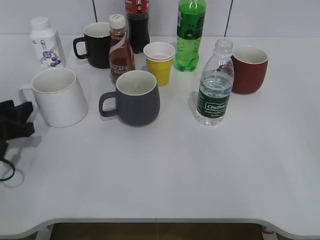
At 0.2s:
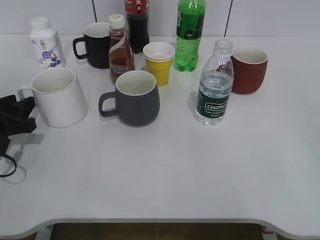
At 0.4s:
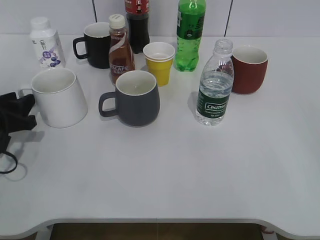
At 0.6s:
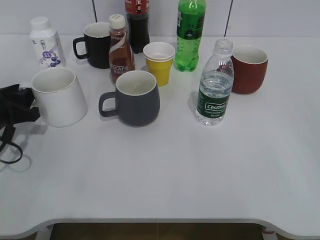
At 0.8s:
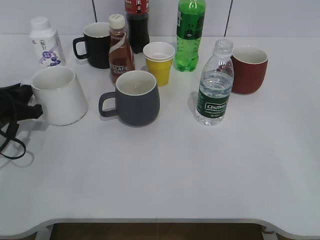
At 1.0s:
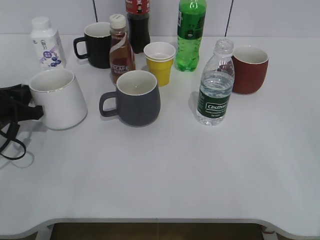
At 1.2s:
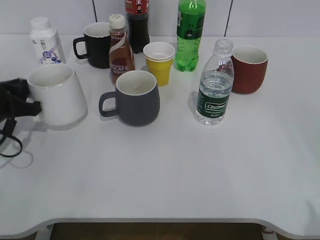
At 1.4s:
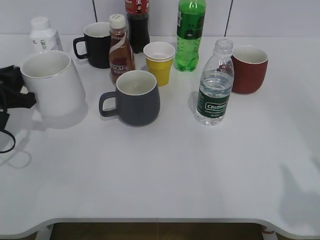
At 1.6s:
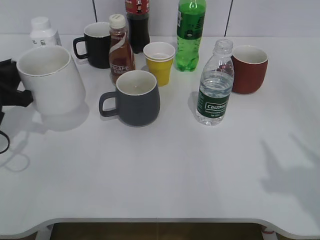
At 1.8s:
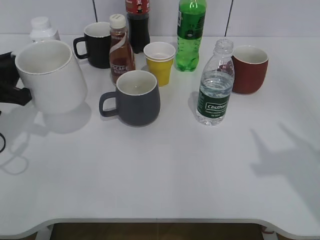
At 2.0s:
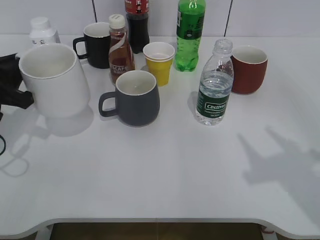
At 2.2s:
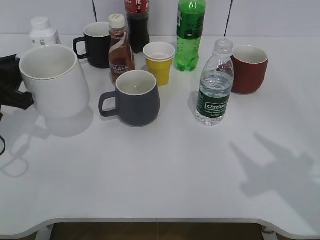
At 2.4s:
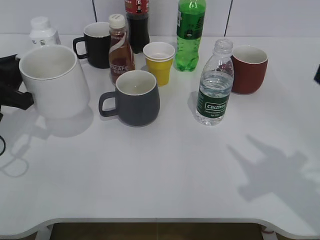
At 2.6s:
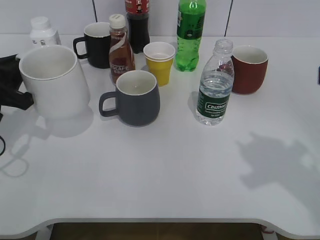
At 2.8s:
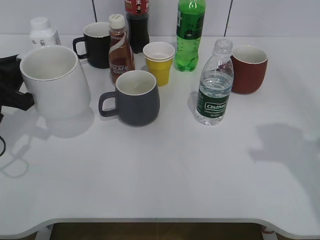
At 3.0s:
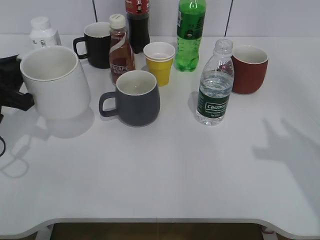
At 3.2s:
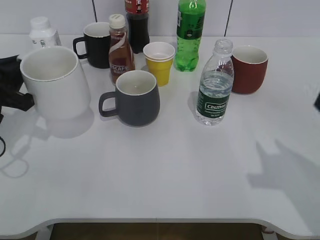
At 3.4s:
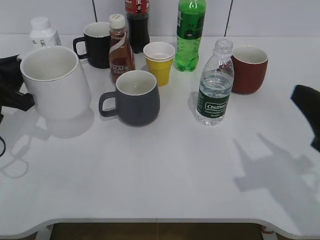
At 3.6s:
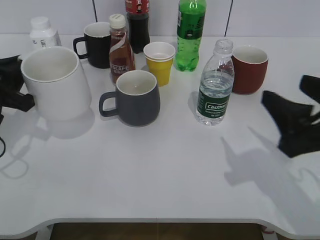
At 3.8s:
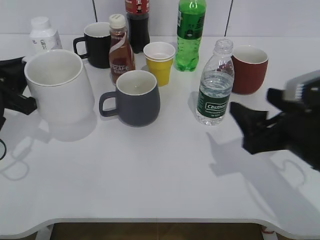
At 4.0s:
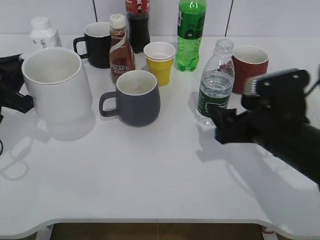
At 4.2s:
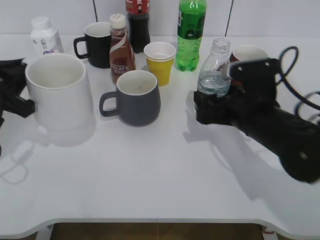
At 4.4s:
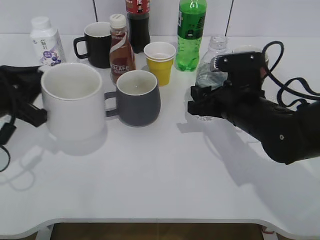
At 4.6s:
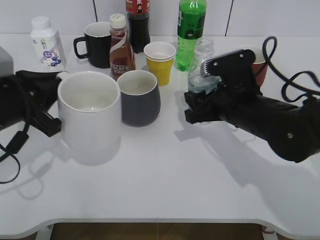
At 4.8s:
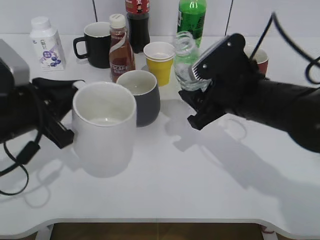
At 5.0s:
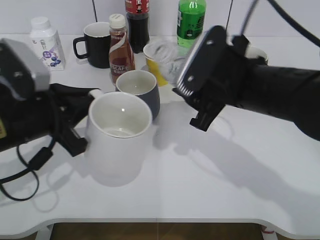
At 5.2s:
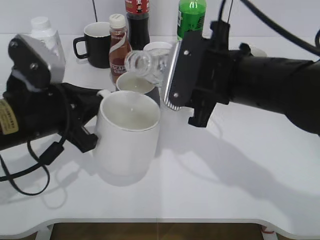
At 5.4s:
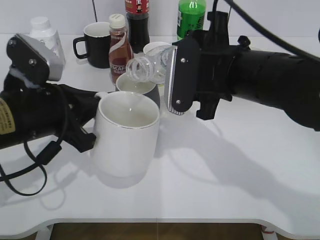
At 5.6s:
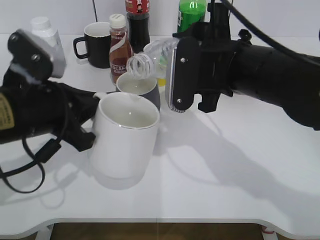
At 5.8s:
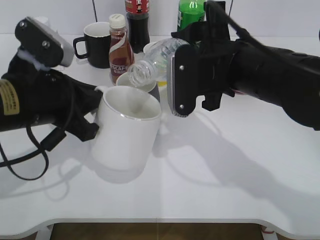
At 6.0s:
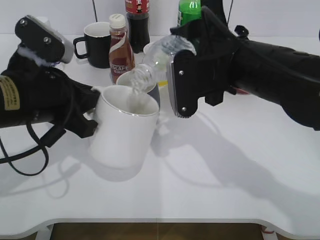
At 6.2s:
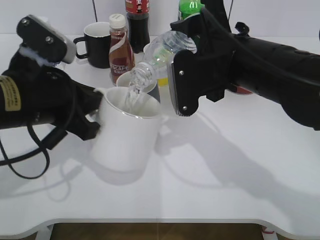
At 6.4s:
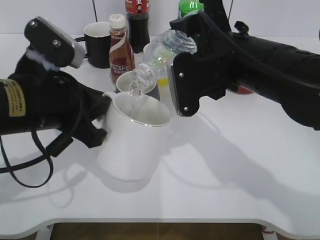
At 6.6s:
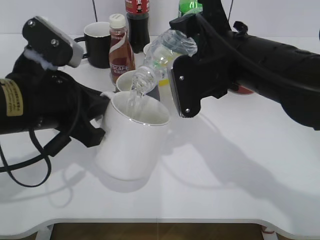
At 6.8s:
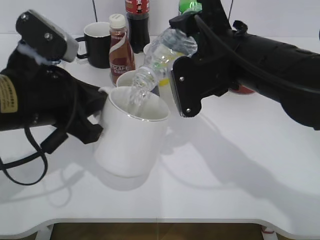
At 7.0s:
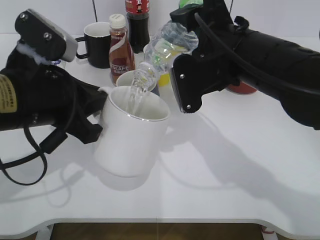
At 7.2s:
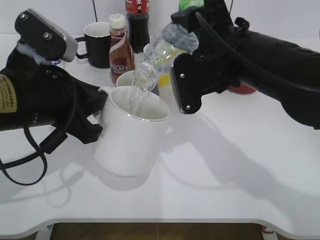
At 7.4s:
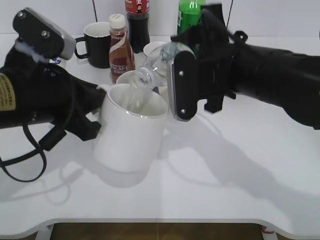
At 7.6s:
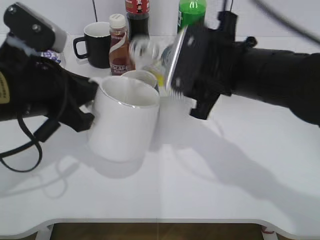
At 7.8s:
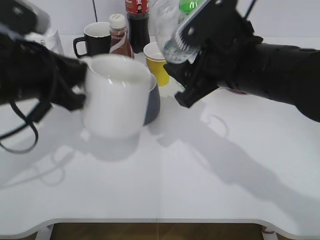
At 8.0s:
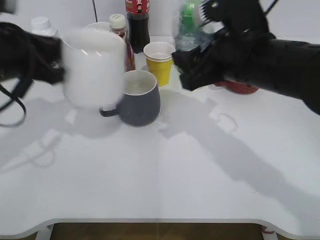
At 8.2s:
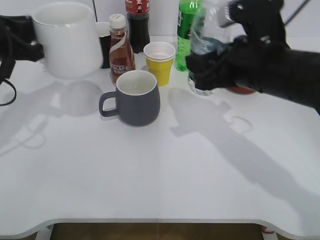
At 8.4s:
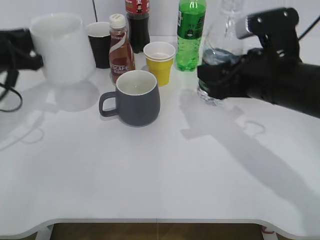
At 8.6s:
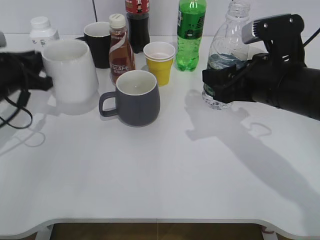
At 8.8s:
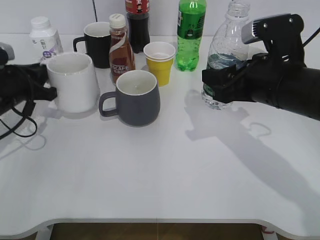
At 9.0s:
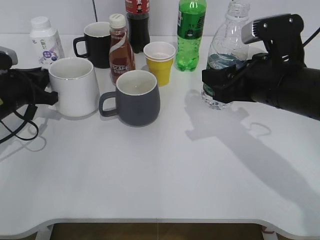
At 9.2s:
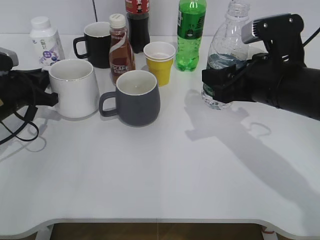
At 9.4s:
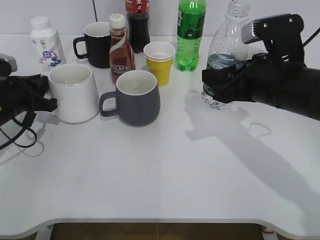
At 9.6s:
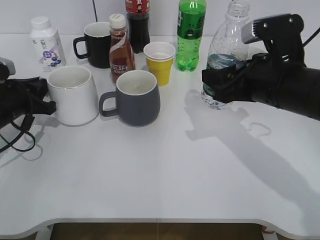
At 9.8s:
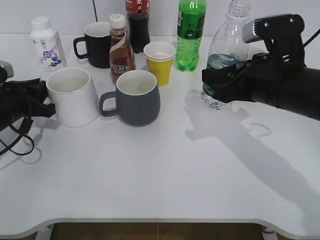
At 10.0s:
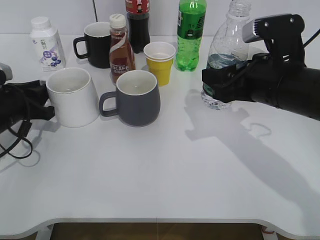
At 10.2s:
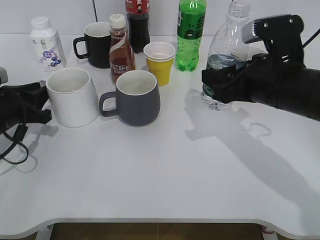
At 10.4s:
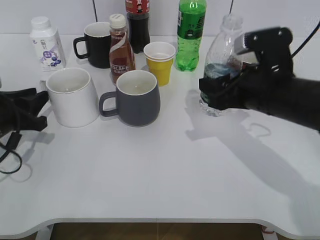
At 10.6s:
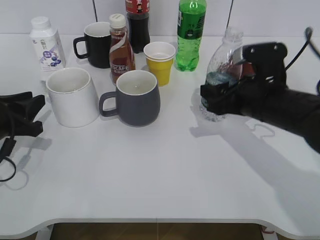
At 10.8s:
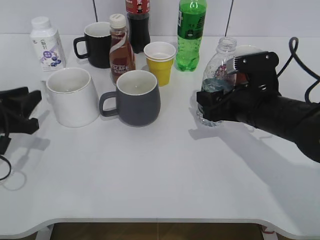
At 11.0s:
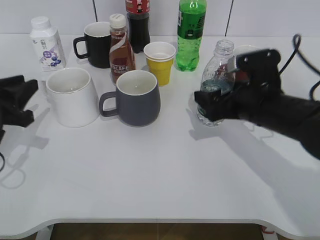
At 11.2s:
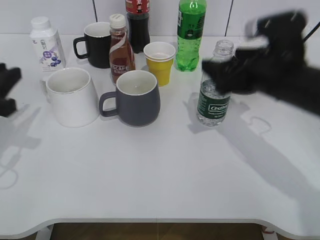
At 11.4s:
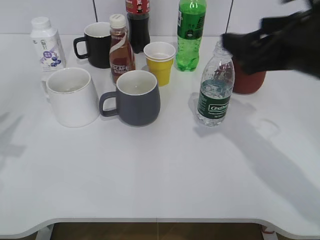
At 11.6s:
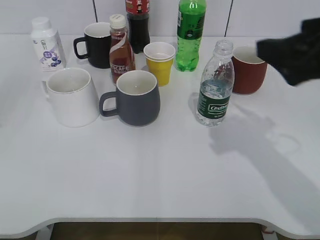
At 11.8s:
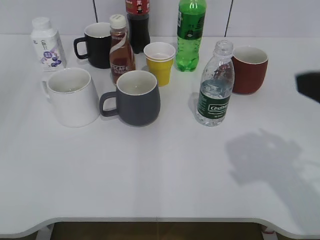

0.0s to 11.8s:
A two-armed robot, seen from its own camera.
Step, 0.8s to 1.8s: Lift the white cup with left gripper.
Step, 2.2s to 4.2s: Grasp the bottle with water with right gripper.
Step, 4.6s to 7.6s: Pour the water from bottle to cup with right gripper.
Step, 7.8s to 10.0s: Place the white cup on the table with left gripper.
Step, 10.2s to 10.6s: Place the water bottle on the table with right gripper.
0.0s to 1.4s: The left gripper changes place by some 5 cm, and closes its fingers.
3.0s to 4.4s: The right gripper shifts about 25 cm downward, to the left and forward, and opens its fingers.
4.4s to 6.0s: The right gripper moves upward, some 10 cm. Meanwhile the left gripper shifts some 10 cm to the right.
6.0s to 7.4s: The grippers move only a little.
7.4s to 8.8s: The left gripper heads forward, to the left and downward, covering roughly 20 cm. The right gripper shifts roughly 5 cm to the right.
8.8s to 10.4s: The left gripper goes some 5 cm backward.
10.4s to 11.8s: The left gripper heads upward and backward, covering roughly 30 cm, and opens its fingers. The right gripper shifts about 20 cm upward, backward and to the right, and opens its fingers.

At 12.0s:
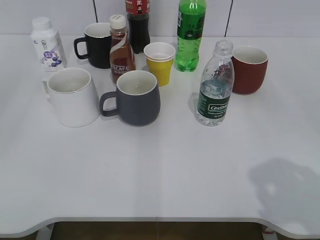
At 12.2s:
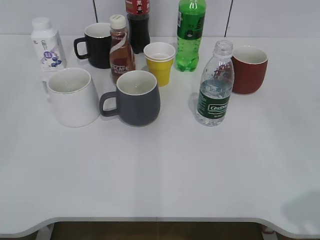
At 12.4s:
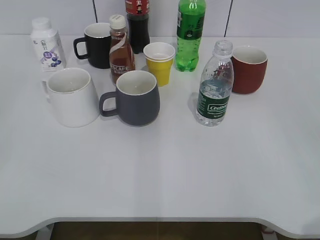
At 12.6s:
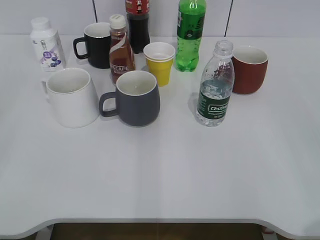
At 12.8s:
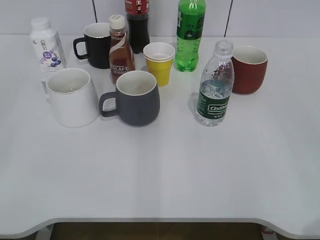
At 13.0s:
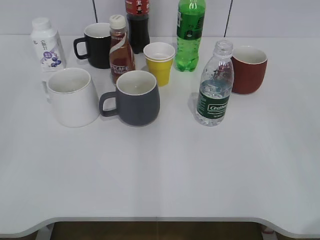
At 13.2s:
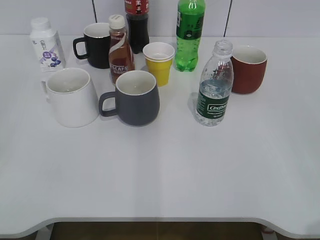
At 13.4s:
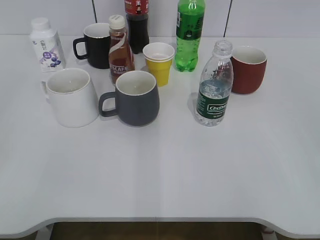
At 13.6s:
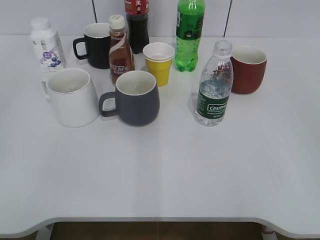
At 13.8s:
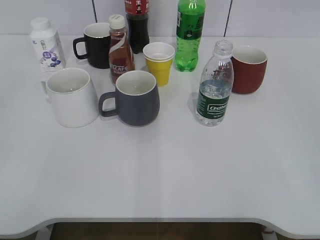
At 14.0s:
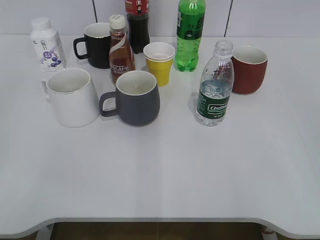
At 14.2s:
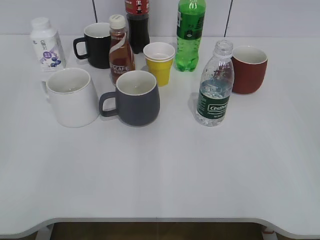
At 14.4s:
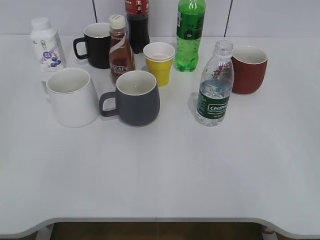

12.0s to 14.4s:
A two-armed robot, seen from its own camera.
12.0s to 13.2s: The right gripper shifts about 10 cm backward and to the right; the left gripper ends up about 5 cm from where it was.

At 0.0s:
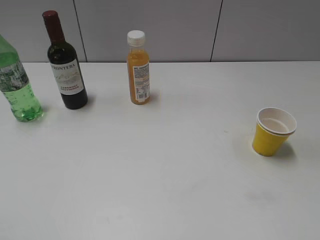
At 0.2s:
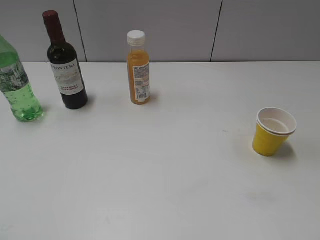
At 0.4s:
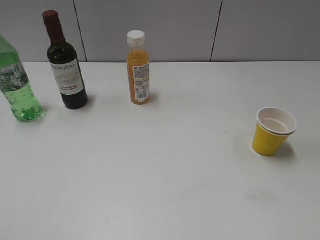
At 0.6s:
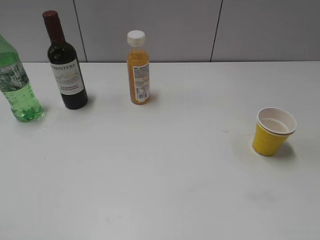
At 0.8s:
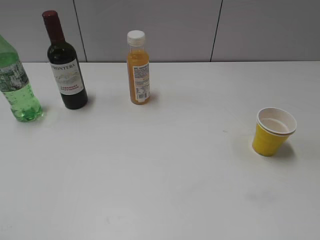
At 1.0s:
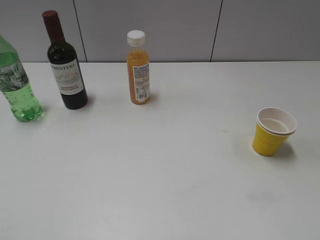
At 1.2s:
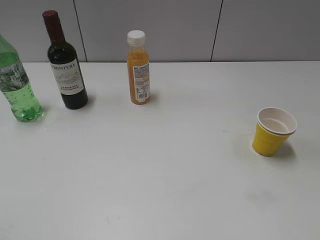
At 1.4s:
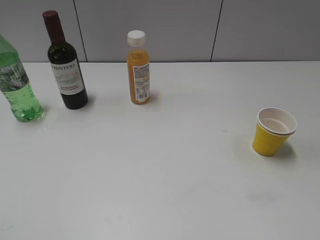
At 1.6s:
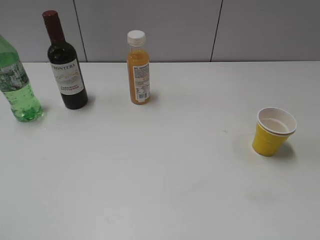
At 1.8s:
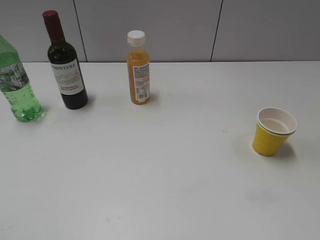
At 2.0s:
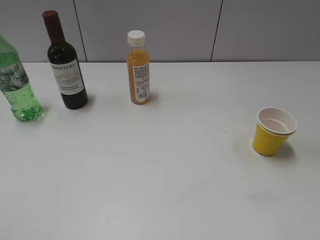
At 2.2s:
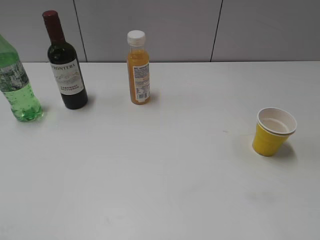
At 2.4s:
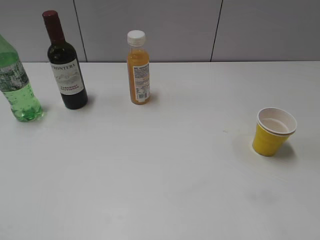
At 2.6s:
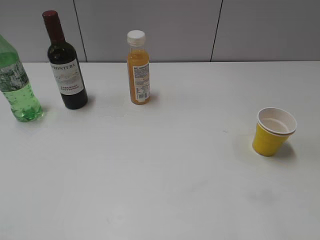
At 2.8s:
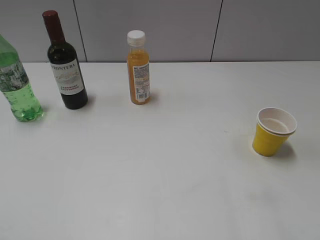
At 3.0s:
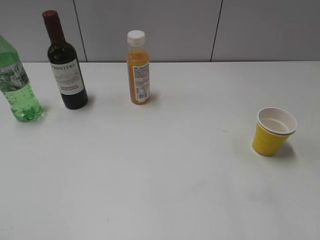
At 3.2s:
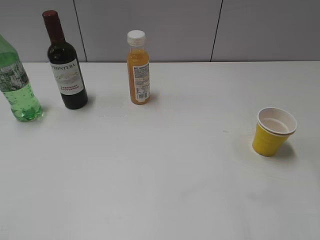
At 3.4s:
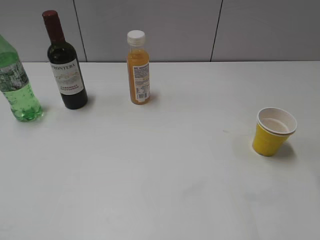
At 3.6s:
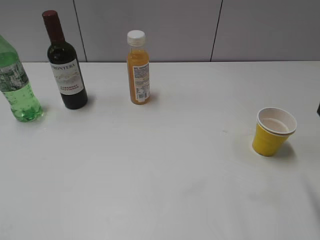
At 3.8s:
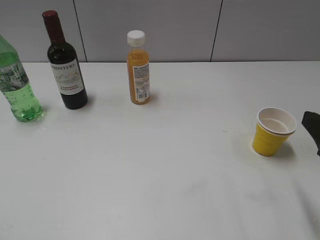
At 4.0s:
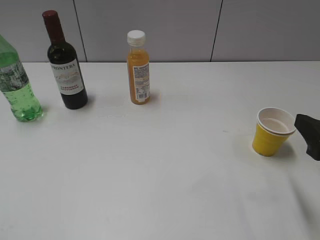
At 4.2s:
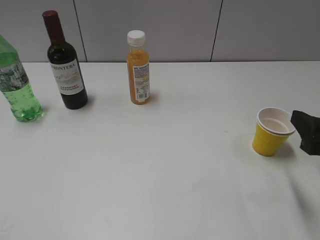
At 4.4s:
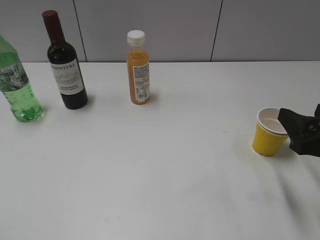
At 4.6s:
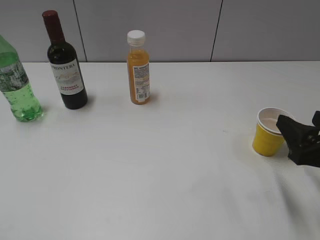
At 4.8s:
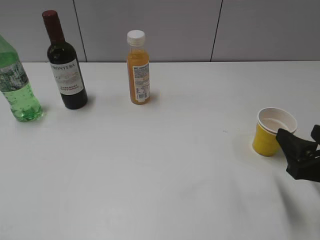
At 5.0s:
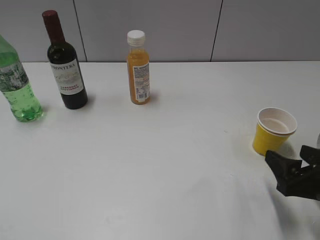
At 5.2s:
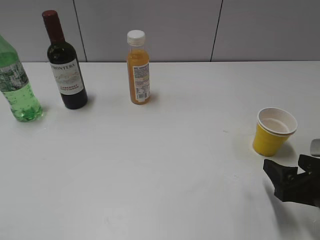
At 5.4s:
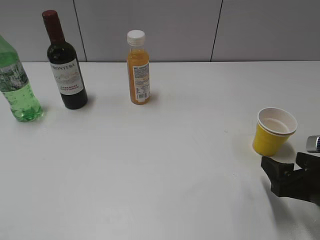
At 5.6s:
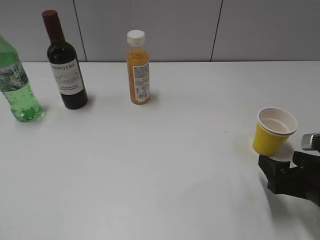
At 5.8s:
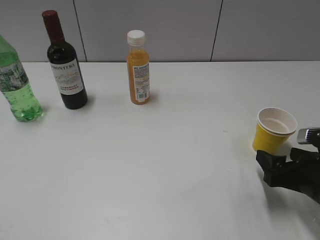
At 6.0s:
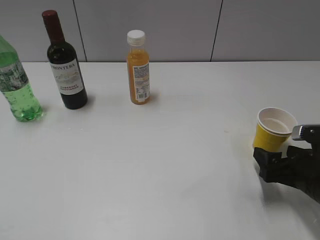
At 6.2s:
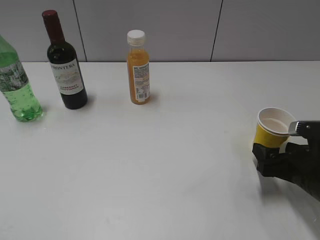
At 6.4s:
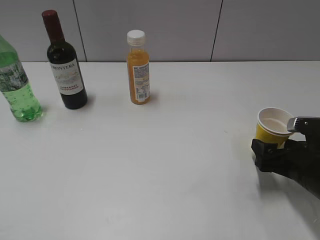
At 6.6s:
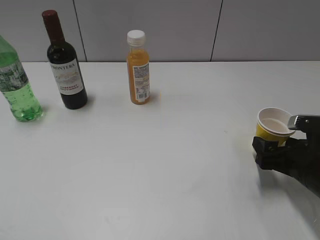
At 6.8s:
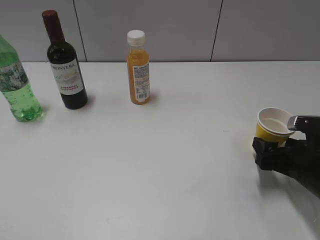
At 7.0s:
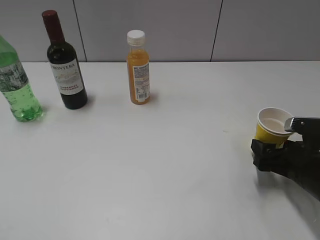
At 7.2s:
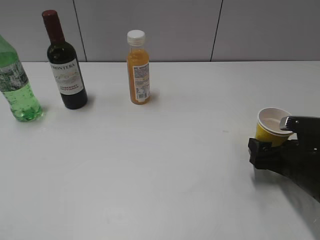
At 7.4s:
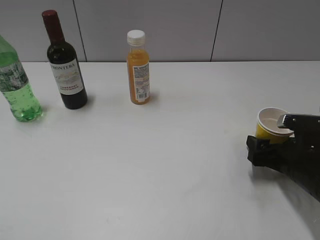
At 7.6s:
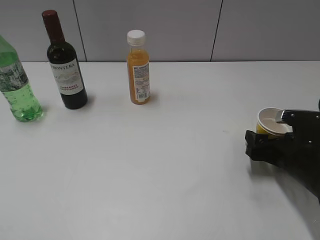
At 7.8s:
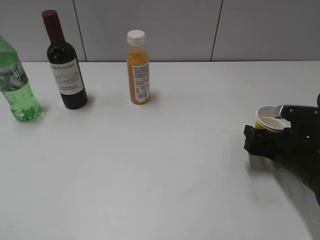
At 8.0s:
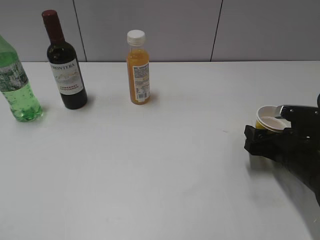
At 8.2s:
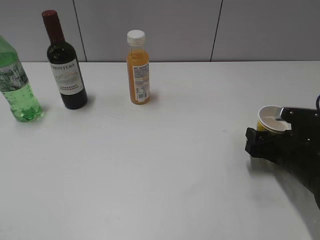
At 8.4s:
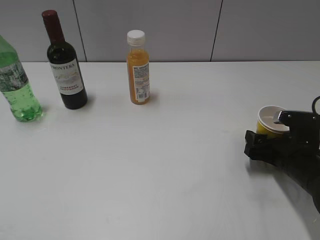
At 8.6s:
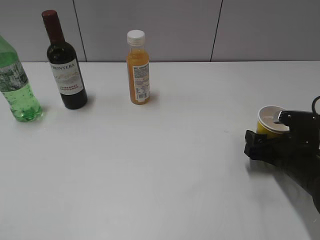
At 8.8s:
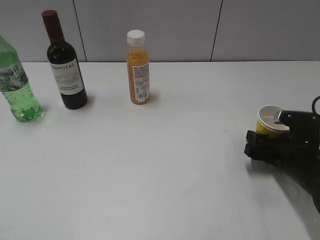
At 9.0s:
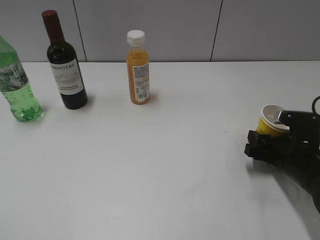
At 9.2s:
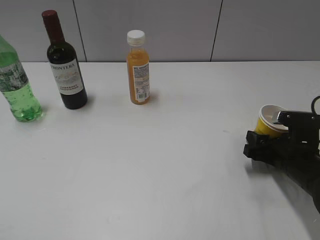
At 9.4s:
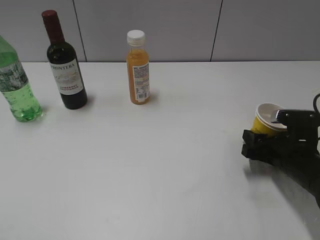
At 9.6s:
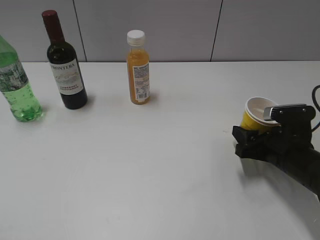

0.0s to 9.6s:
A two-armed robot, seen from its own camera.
Step, 1.4s to 9.0s: Grasp the yellow paper cup with right gripper.
3.2s to 4.8s: The right gripper heads downward, covering approximately 15 cm.
4.8s to 6.4s: The right gripper heads downward and forward, covering some 10 cm.
6.4s to 8.0s: The grippers stay close to where they were, moving slightly.
8.0s to 9.6s: The right gripper closes up.
